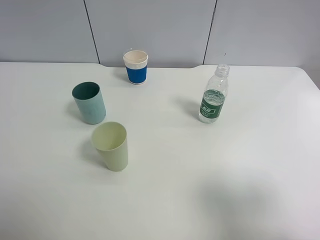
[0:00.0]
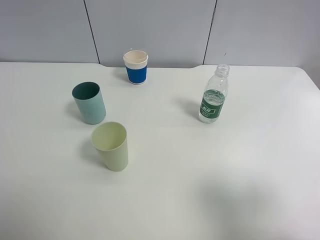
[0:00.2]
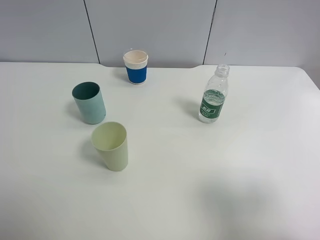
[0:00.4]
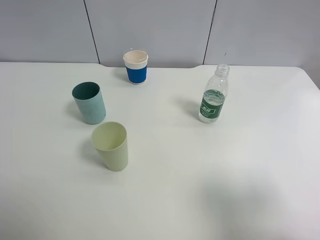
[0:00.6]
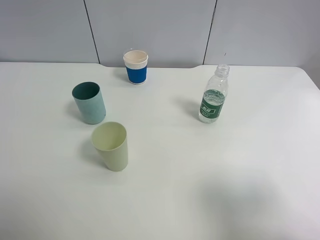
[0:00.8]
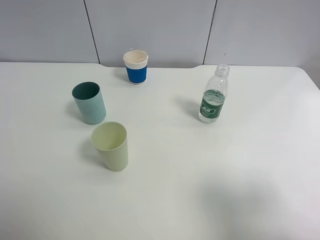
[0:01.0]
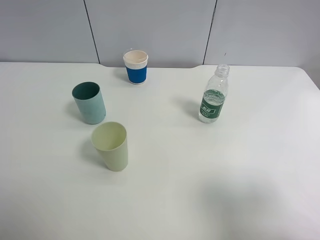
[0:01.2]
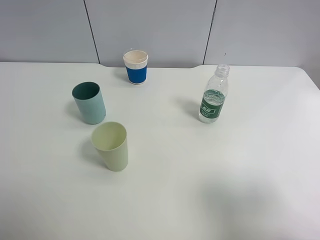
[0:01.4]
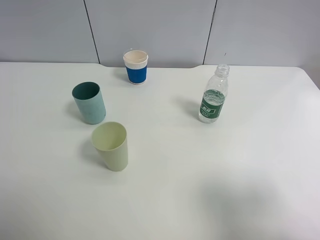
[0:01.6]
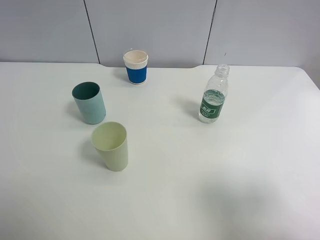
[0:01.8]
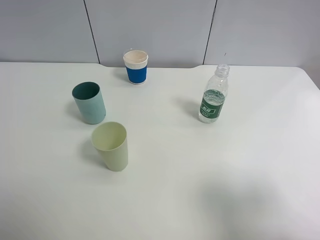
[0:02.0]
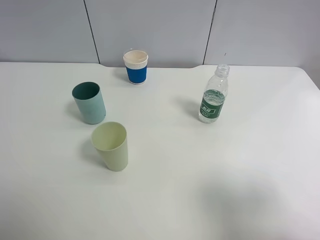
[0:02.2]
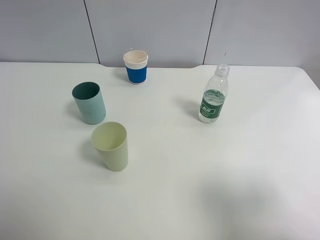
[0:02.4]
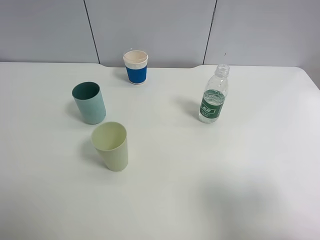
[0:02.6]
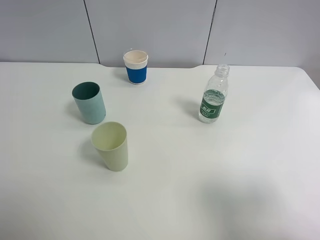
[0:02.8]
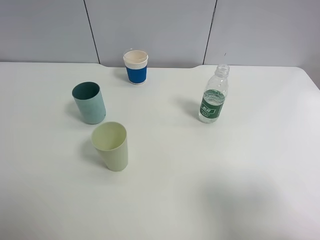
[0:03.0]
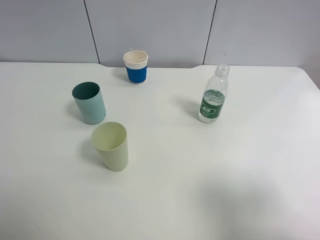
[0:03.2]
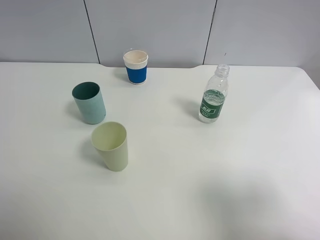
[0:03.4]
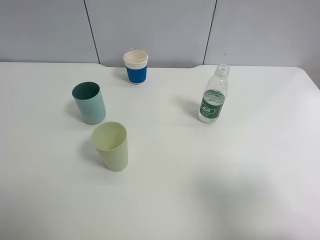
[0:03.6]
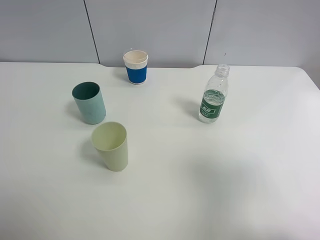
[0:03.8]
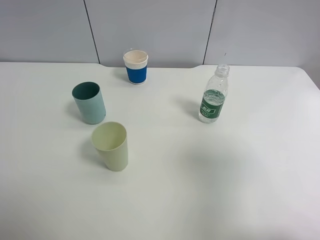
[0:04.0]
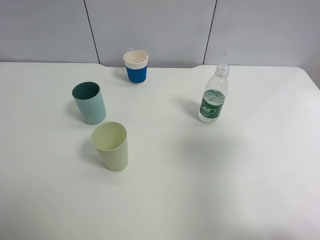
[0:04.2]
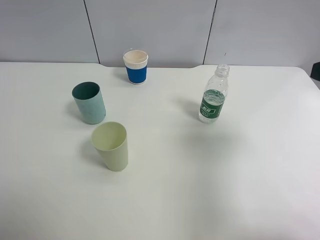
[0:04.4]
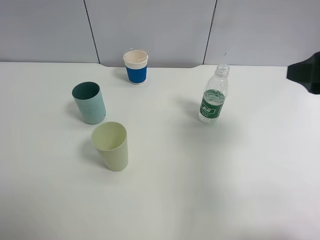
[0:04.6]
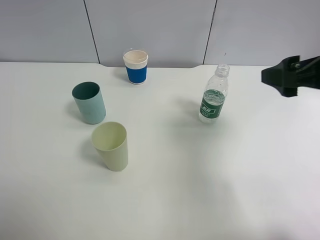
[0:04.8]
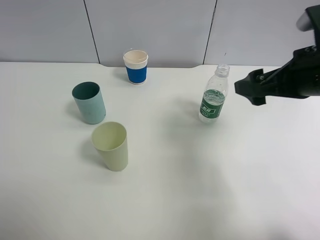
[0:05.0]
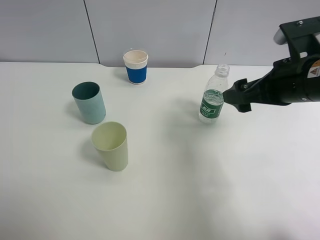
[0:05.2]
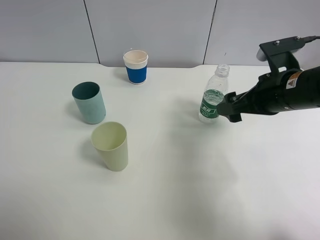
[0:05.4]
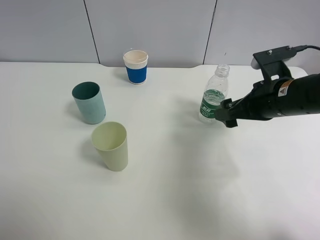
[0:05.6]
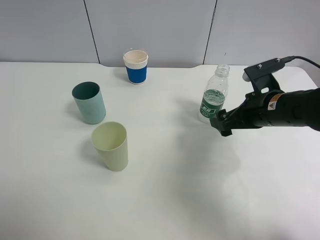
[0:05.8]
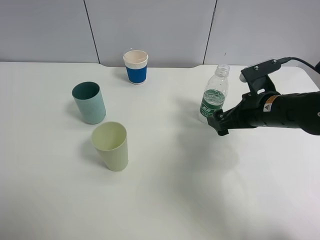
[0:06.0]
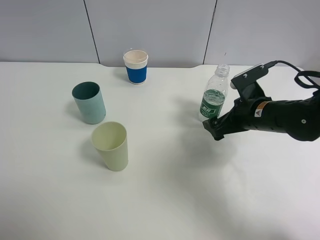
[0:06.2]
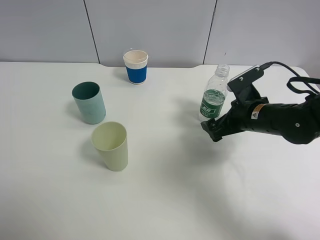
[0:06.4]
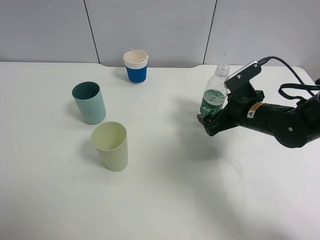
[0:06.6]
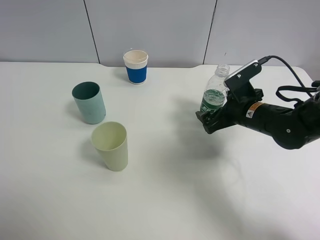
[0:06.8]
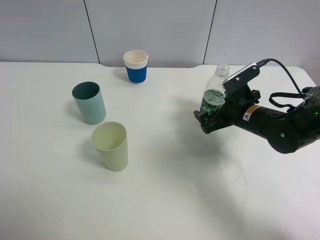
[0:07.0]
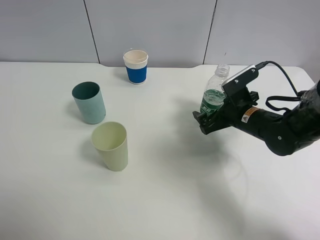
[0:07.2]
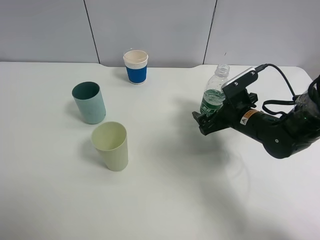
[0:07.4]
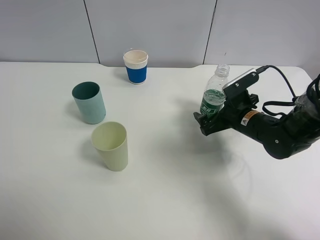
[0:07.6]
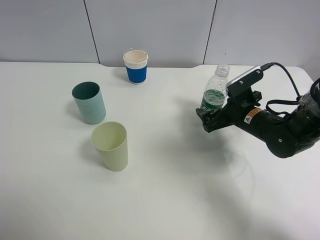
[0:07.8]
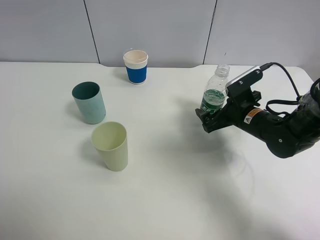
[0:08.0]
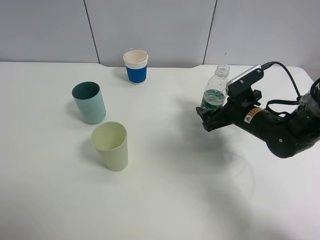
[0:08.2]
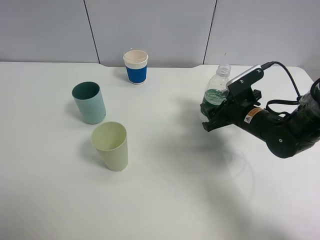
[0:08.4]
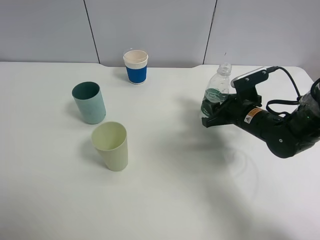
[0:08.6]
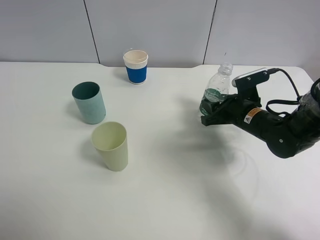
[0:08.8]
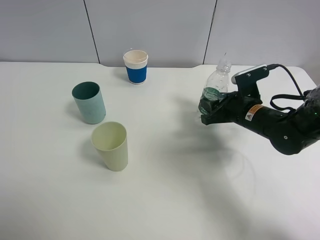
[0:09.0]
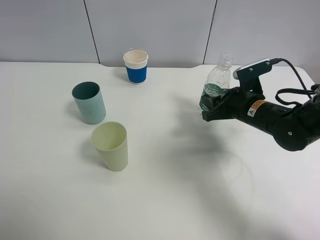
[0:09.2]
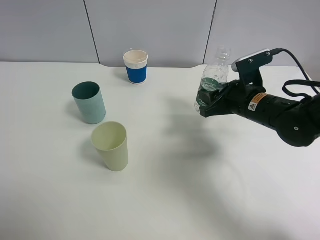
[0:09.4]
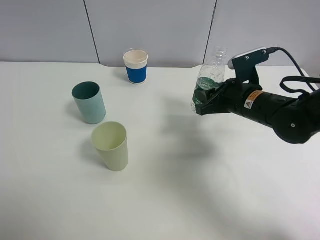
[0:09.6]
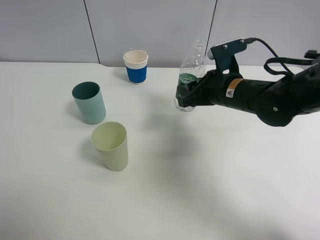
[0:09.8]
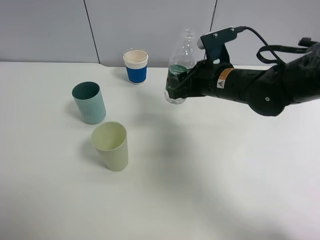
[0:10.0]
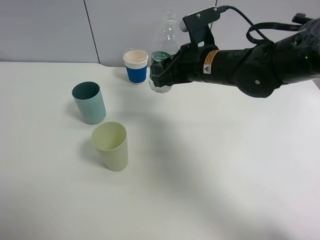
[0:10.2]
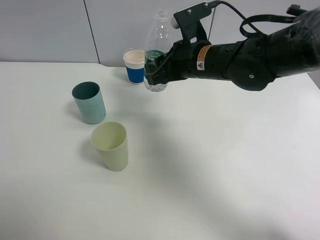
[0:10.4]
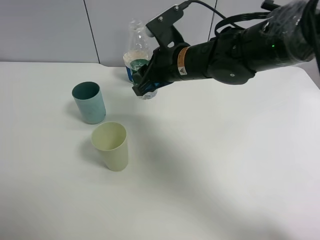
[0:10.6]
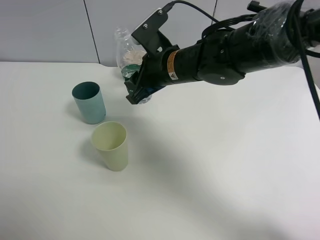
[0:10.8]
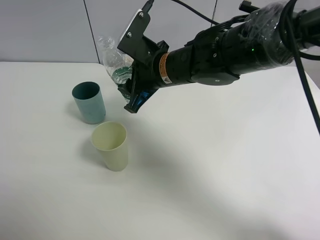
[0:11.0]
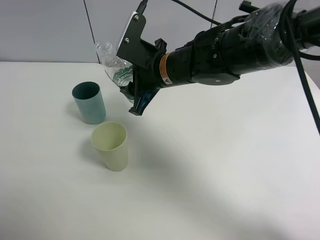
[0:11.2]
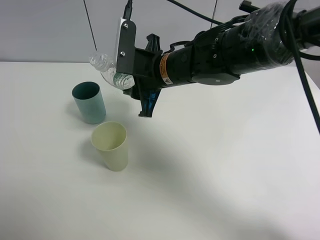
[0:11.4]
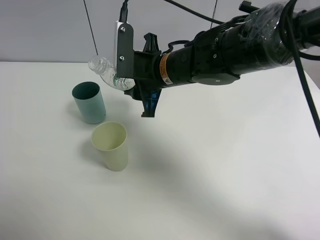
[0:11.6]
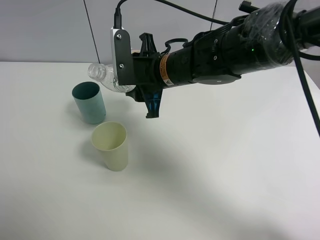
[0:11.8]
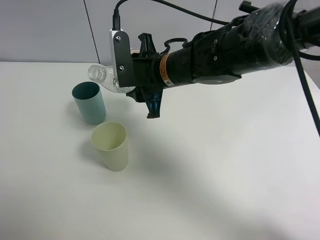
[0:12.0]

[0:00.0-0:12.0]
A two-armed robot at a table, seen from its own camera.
Task of the whole recording: use a clamp to hold the bottle of the drink, pour the beverage into a random cup, then clamp the cup containing the drink and pour the drink into another random cup.
Step, 0:00.0 to 0:09.0: Pick up the water bottle with right gripper.
0:00.0 to 0:03.0: The two grippers keep their place.
0:03.0 to 0:04.4: The right gripper is displaced forward by some 15 cm.
0:04.4 to 0:06.0: The right gripper is displaced downward, forward and to the left by approximately 20 cm.
0:06.0 to 0:07.6: The right gripper is displaced downward by some 5 cm.
0:07.6 to 0:09.0: The right gripper closes up.
0:09.0 to 0:10.4: The right gripper is displaced to the left and upward by about 15 cm.
0:10.4 to 0:12.0: The right gripper goes roughly 5 cm to the left.

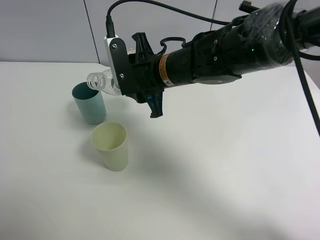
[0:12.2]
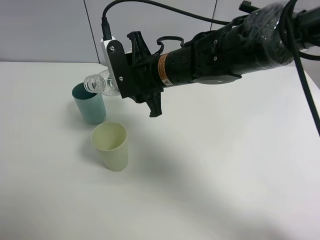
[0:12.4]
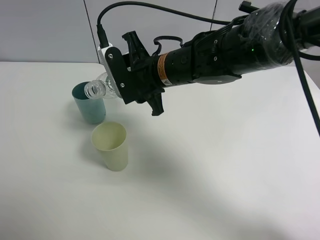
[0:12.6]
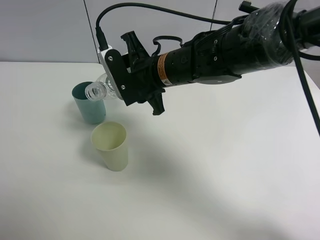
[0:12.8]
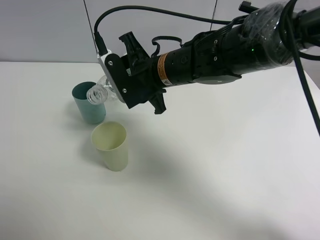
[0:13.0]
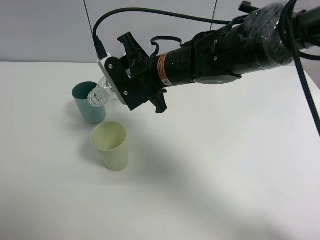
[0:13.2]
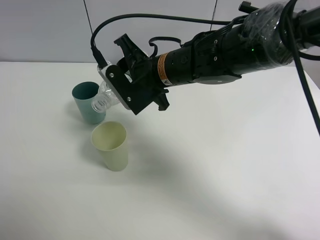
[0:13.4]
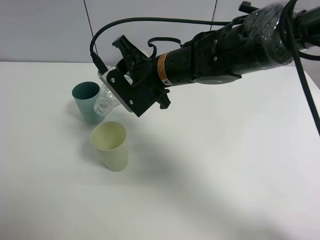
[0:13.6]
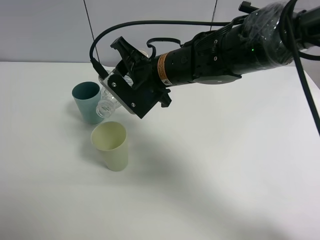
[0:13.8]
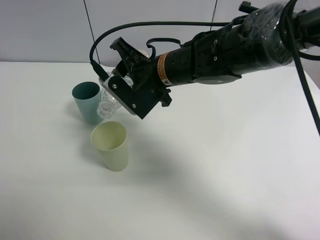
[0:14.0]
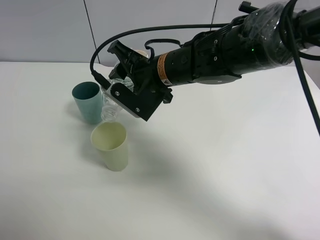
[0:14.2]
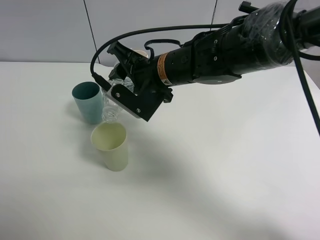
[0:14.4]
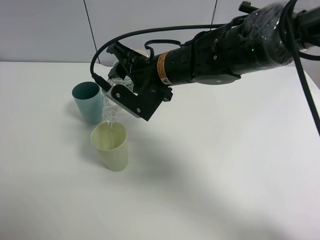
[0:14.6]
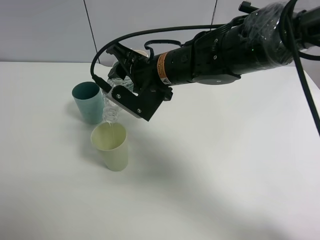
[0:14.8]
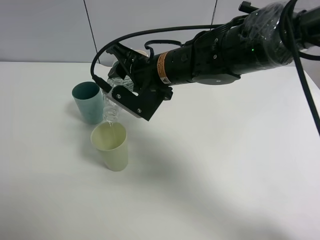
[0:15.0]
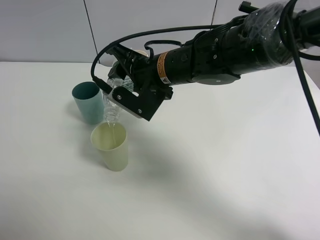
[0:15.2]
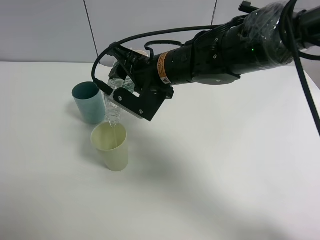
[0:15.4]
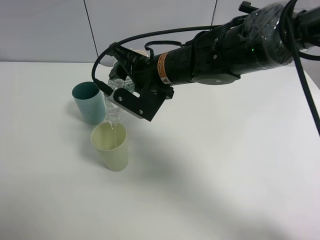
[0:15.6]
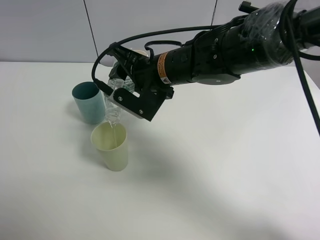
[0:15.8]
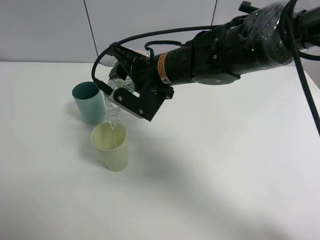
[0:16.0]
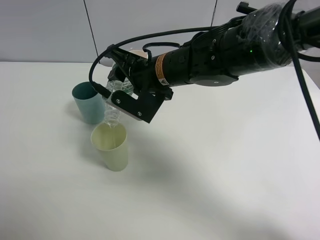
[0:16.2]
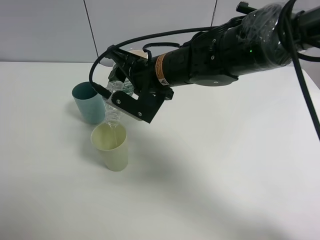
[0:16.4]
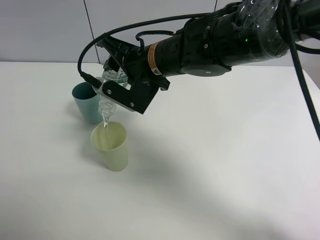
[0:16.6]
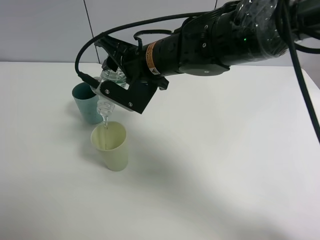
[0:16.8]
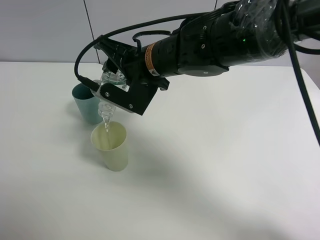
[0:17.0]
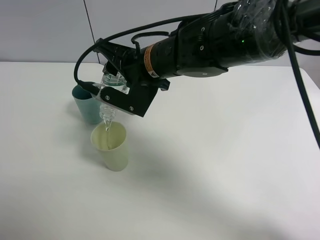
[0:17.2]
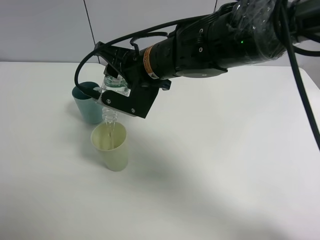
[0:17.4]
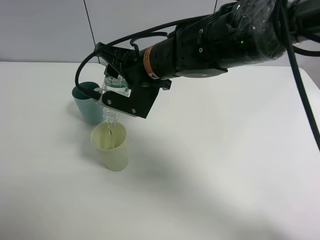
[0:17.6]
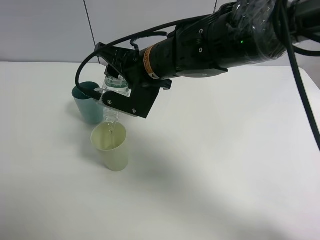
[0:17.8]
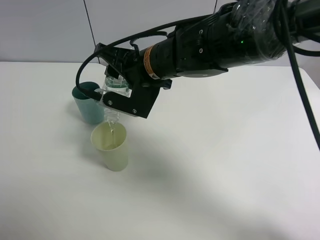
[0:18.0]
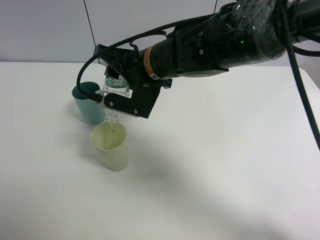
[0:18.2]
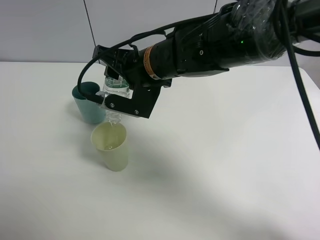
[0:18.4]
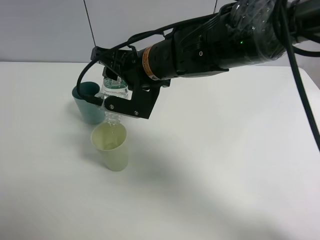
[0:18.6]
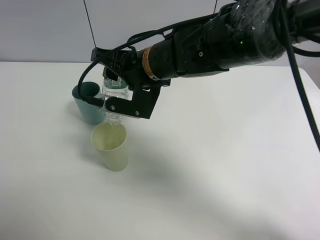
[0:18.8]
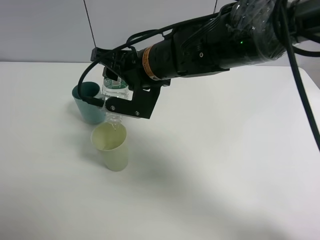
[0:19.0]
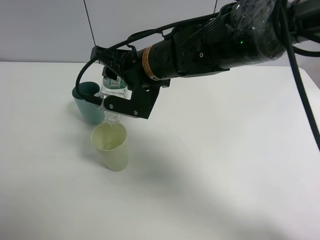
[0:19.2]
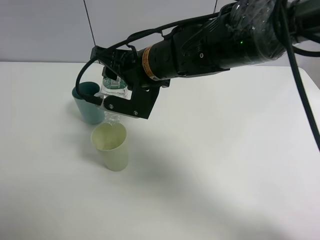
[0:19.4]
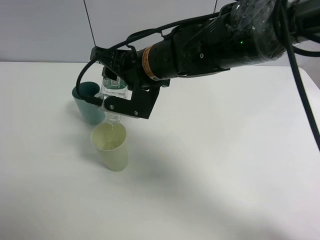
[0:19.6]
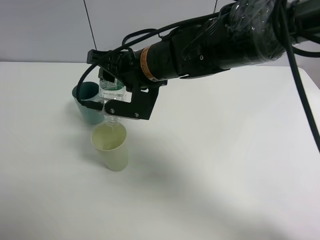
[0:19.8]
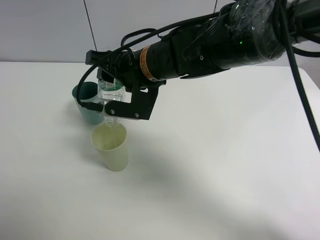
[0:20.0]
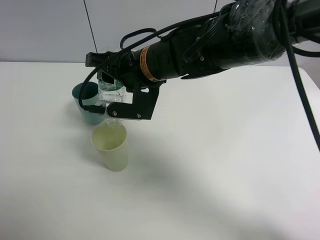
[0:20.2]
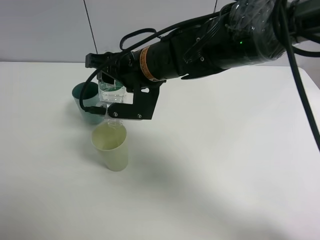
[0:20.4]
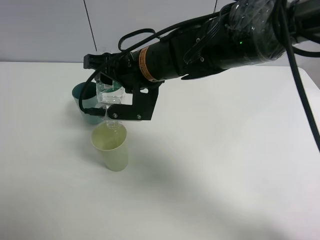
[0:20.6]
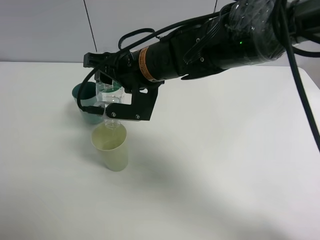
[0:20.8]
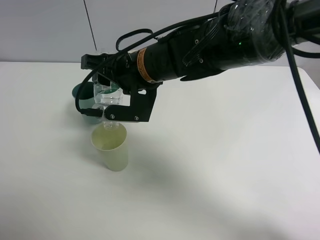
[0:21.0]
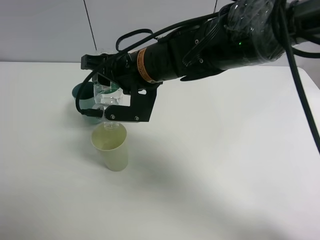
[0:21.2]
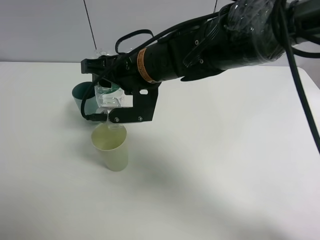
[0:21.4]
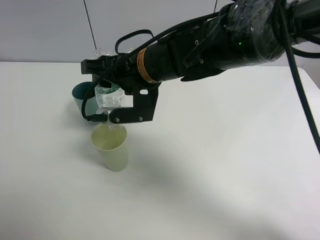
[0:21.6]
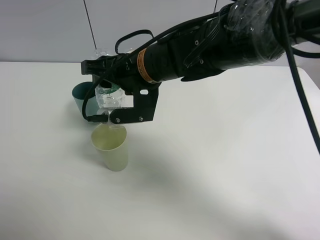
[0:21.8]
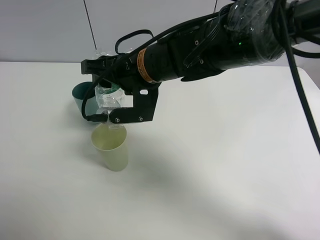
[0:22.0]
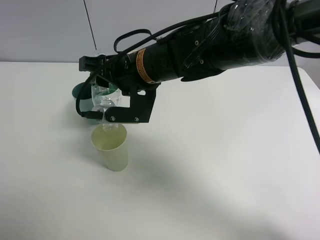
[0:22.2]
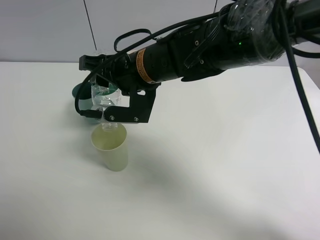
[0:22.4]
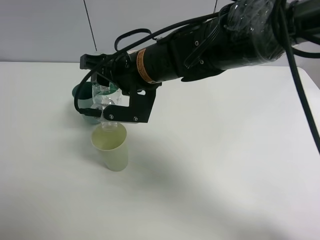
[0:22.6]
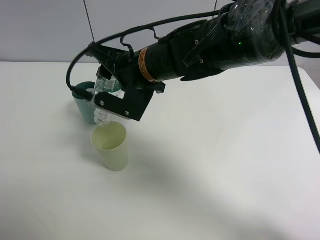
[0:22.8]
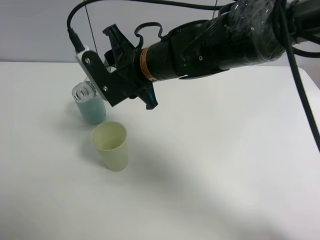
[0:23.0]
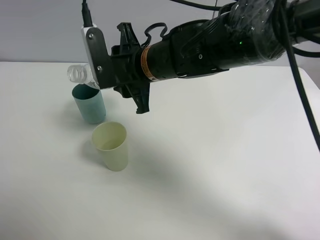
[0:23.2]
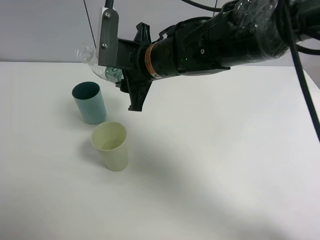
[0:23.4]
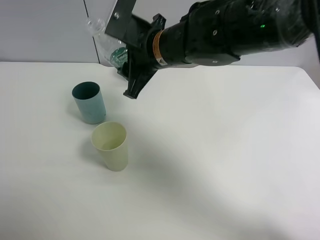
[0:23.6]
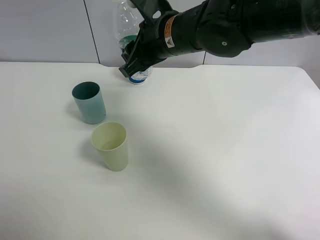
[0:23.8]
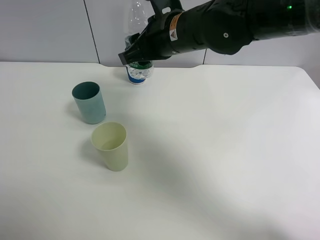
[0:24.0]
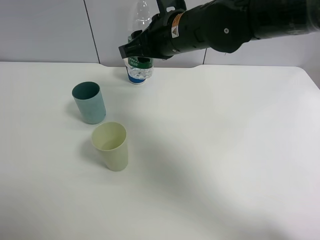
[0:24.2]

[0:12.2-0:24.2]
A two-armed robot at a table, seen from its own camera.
Task of the whole recording: use a clamp to hold the bottle of the drink, pour the beverage into a random cup, then clamp the cup containing the drink and pour the drink into another random cup.
Step, 0:12.2 to 0:23.2: Pour the drink into the green plastic cup with right gripper.
0:13.8 to 0:16.6: The grippers stay close to where they were, moving slightly.
0:16.6 to 0:19.8: The grippers stay close to where they were, moving slightly.
0:19.8 to 0:22.6: The grippers stay close to where they were, moving slightly.
0:22.6 to 0:24.2: The right gripper is displaced to the right by roughly 5 cm.
